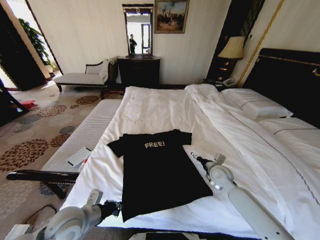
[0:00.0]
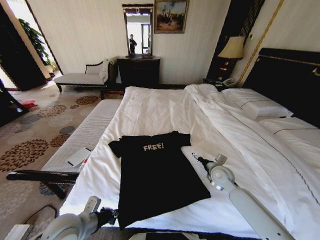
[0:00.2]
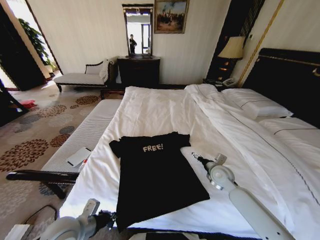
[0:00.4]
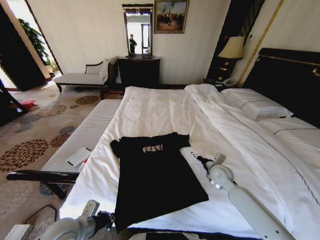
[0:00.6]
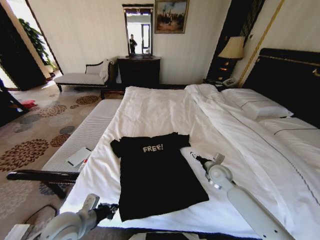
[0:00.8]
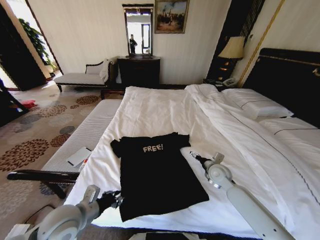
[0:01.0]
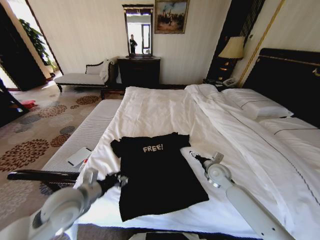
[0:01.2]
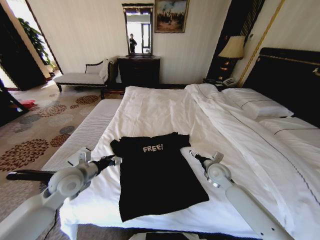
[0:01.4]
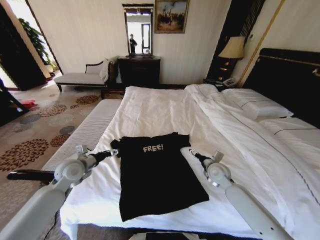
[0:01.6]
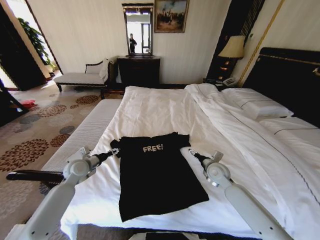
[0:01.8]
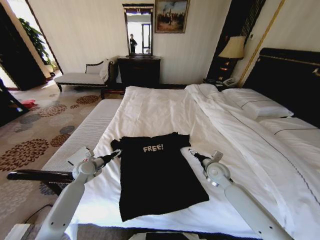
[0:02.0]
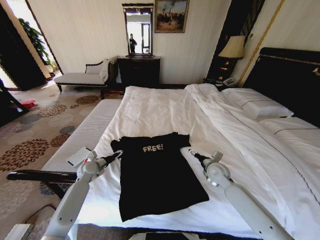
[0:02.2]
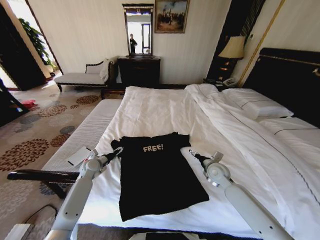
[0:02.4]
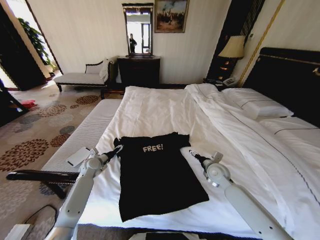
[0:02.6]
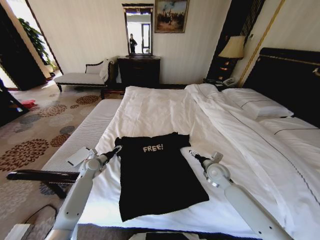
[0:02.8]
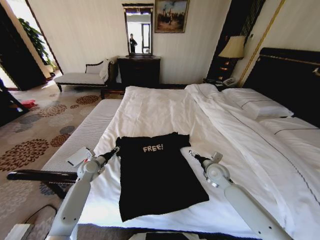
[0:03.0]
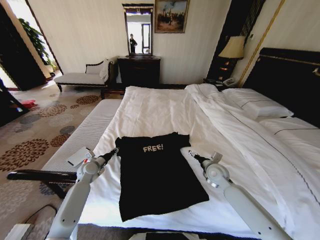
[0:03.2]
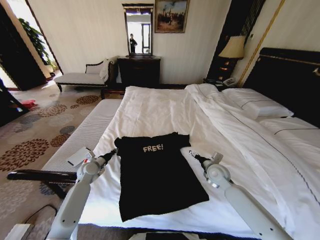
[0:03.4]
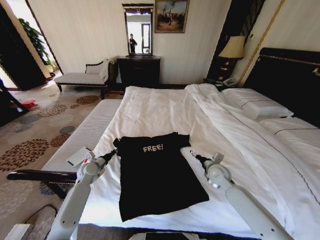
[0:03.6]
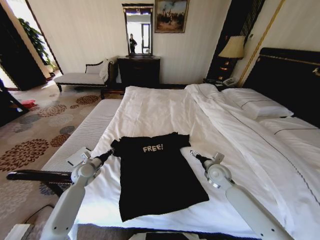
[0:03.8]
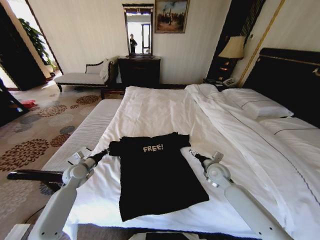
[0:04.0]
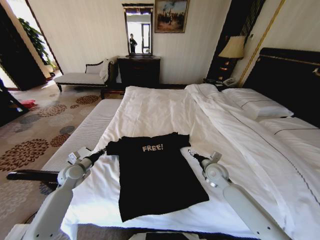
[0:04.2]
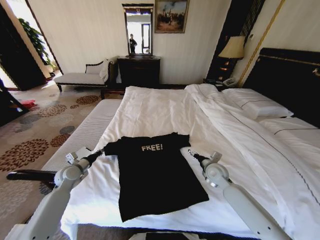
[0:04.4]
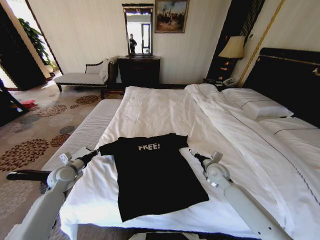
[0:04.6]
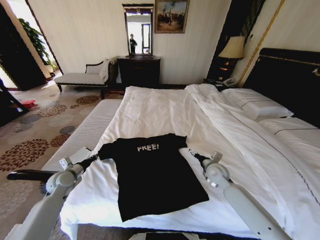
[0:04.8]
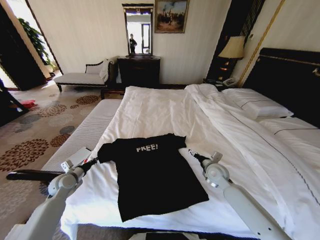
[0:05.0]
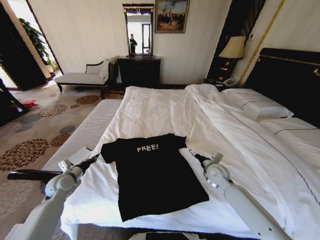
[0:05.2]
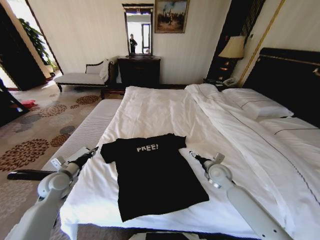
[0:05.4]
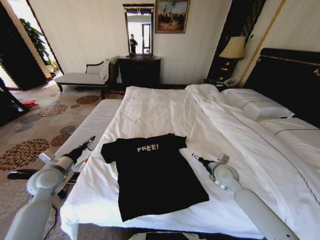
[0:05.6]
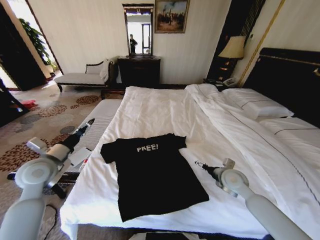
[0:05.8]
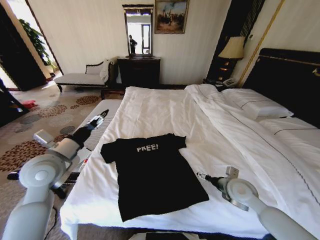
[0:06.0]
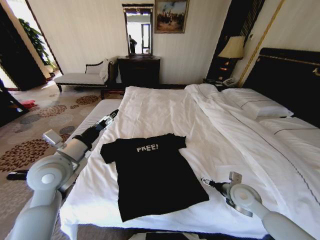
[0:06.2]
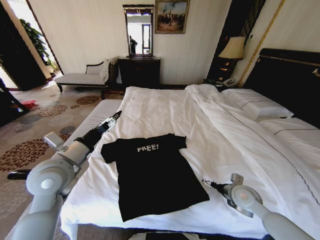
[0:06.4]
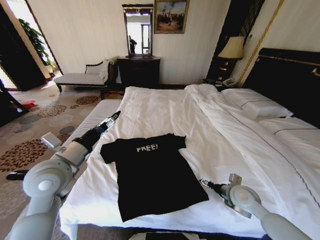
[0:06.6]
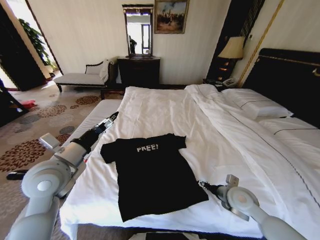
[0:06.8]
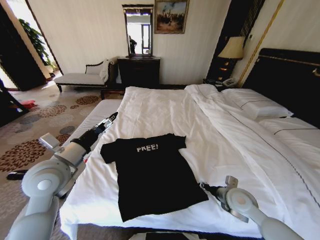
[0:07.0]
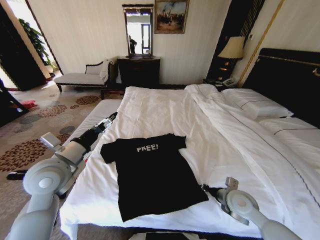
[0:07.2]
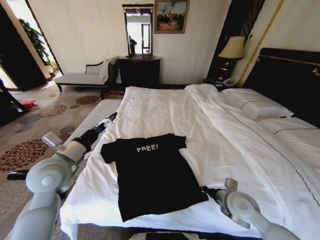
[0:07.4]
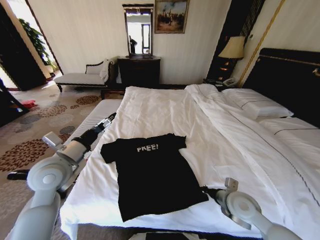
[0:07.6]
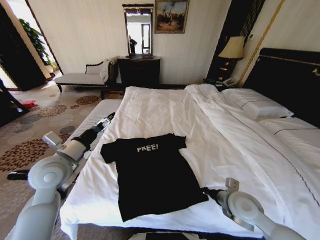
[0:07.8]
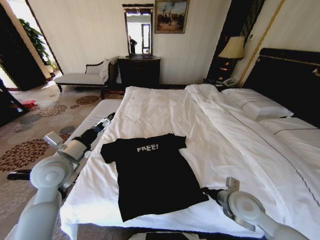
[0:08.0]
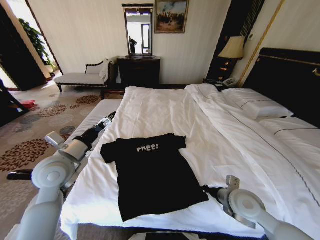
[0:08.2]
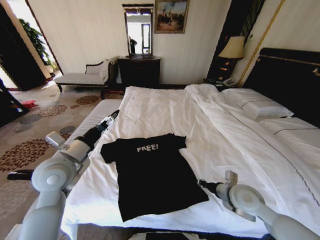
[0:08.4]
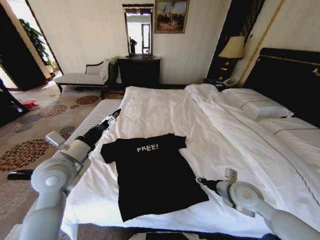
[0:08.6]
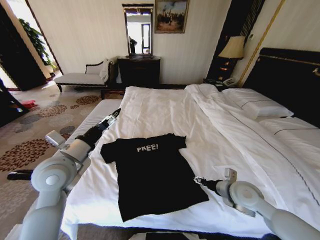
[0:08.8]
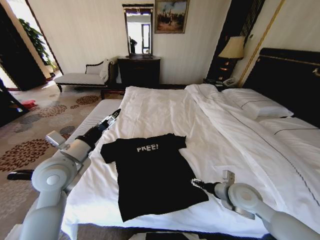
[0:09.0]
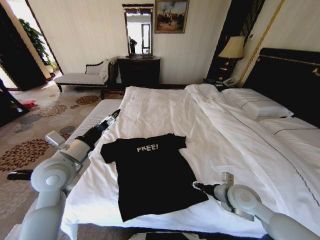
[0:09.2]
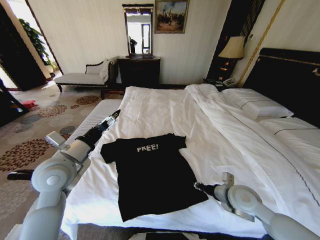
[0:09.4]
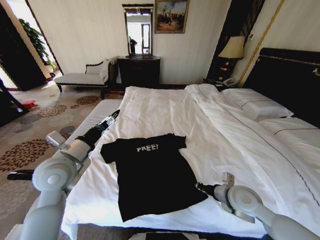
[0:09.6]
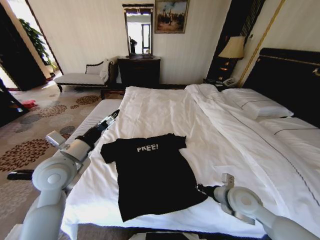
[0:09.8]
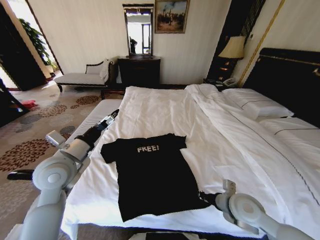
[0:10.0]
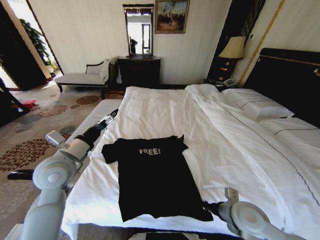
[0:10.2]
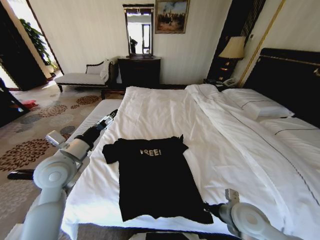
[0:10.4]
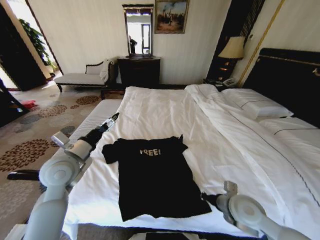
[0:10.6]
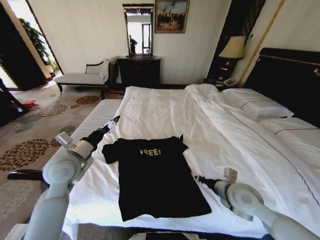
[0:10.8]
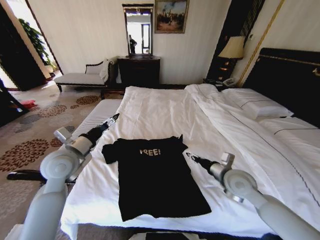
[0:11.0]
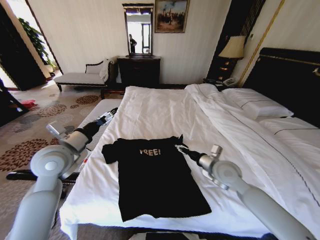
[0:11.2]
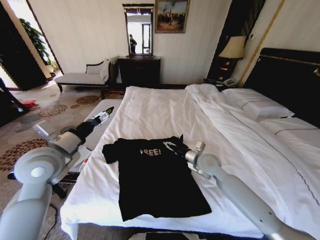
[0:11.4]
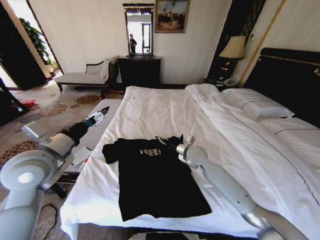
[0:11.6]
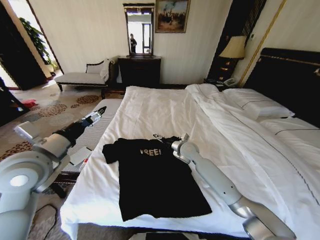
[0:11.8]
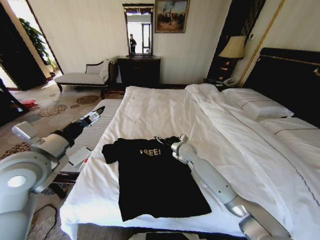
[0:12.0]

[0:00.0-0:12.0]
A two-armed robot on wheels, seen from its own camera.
Task of the whole recording: Fold the clothes on the bed.
0:00.0 to 0:01.6: The left gripper travels forward and to the left by some 20 cm, and opens.
0:01.6 to 0:03.0: The left gripper travels downward and forward by roughly 15 cm.
0:03.0 to 0:04.4: The left gripper is displaced to the left and backward by roughly 10 cm, and closes up.
0:04.4 to 0:06.0: The left gripper is displaced upward and to the right by roughly 20 cm, and opens up. The right gripper goes approximately 10 cm backward.
0:06.0 to 0:07.6: The right gripper changes place by roughly 5 cm, and closes up.
0:07.6 to 0:09.0: The right gripper opens.
0:09.0 to 0:10.4: The right gripper heads backward, covering roughly 5 cm, and closes its fingers.
0:10.4 to 0:12.0: The left gripper shifts about 5 cm upward. The right gripper travels forward and to the left by approximately 30 cm, and opens its fingers.

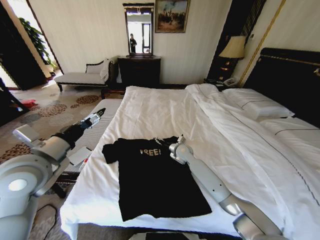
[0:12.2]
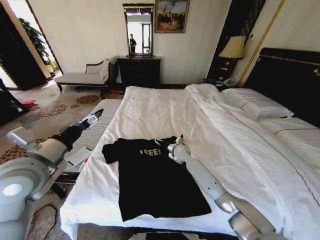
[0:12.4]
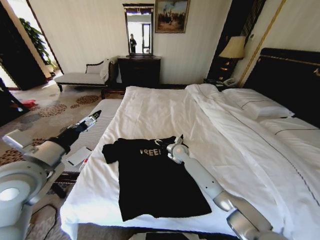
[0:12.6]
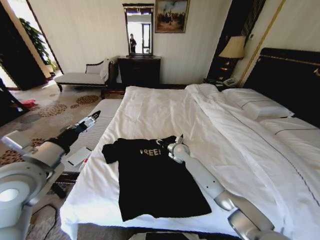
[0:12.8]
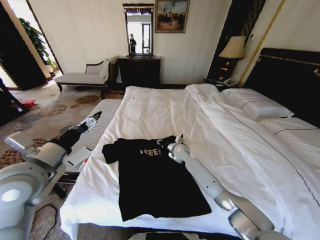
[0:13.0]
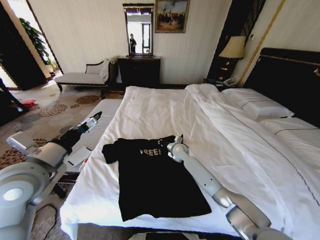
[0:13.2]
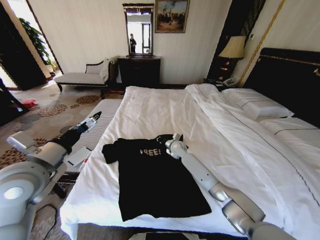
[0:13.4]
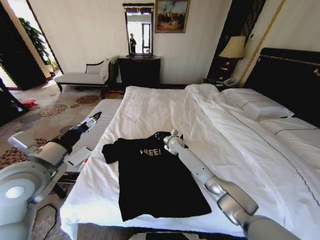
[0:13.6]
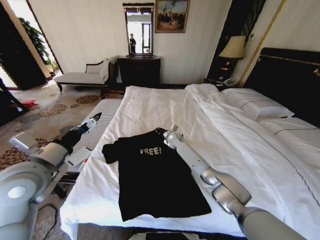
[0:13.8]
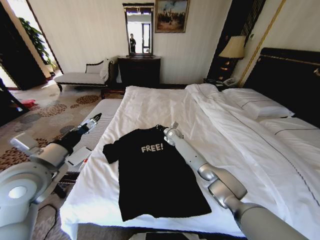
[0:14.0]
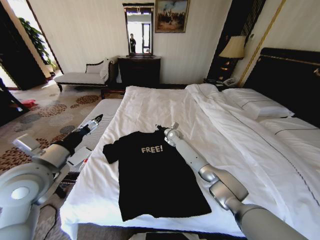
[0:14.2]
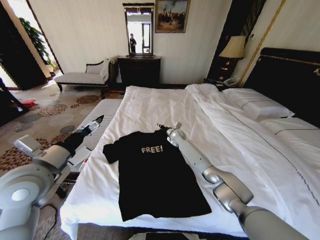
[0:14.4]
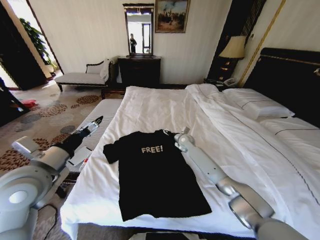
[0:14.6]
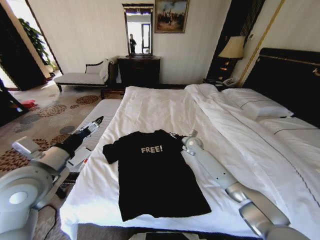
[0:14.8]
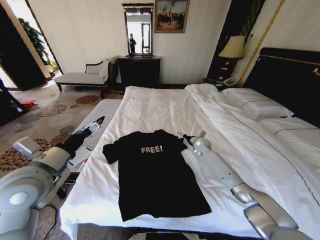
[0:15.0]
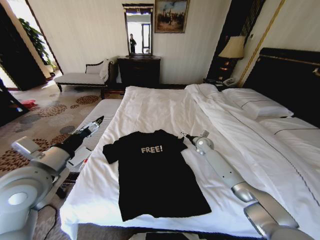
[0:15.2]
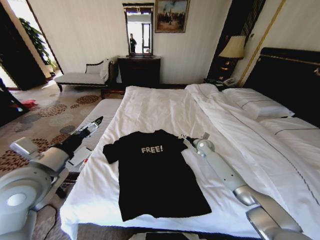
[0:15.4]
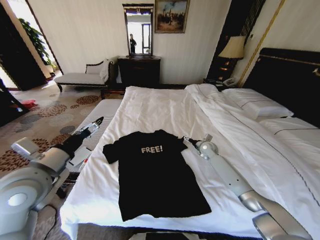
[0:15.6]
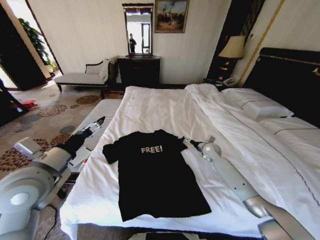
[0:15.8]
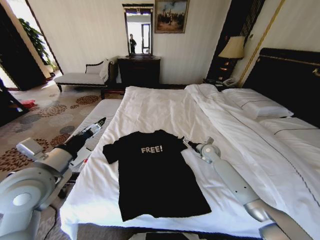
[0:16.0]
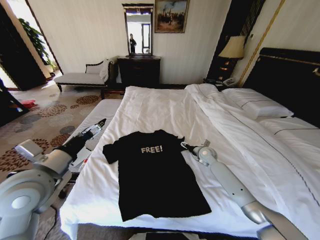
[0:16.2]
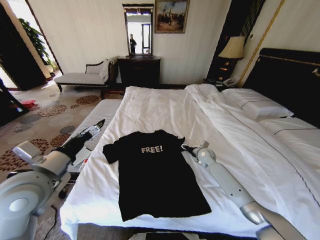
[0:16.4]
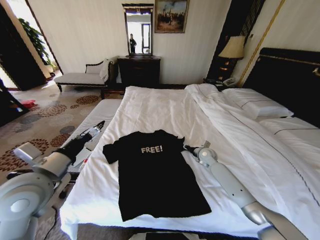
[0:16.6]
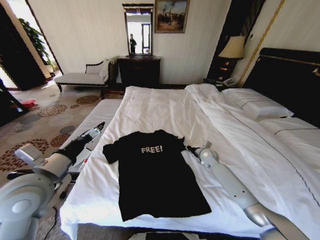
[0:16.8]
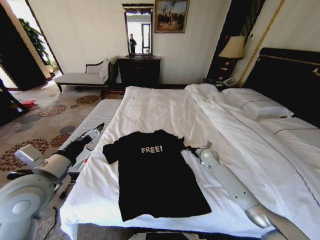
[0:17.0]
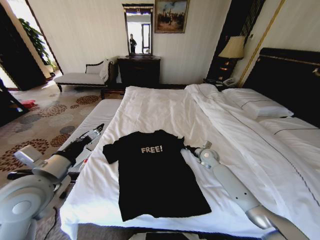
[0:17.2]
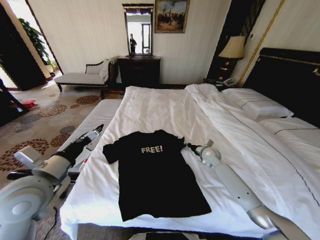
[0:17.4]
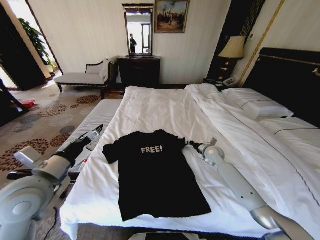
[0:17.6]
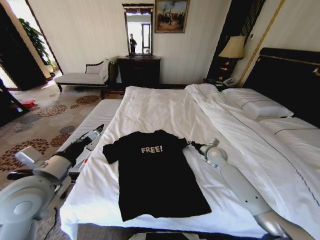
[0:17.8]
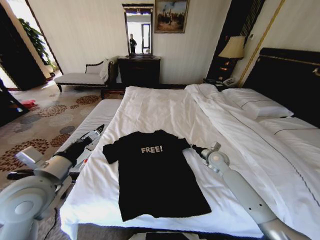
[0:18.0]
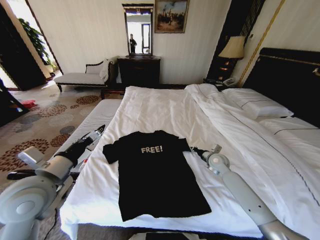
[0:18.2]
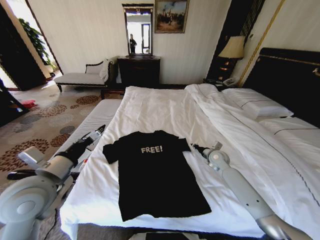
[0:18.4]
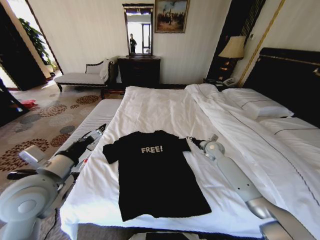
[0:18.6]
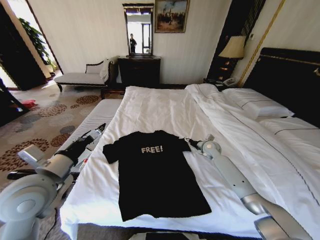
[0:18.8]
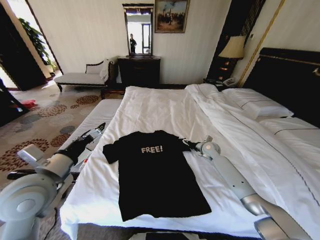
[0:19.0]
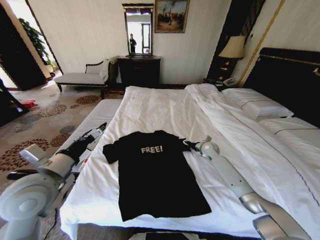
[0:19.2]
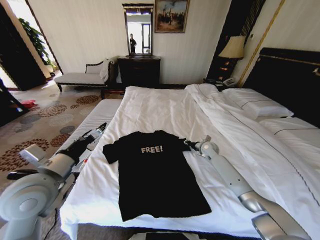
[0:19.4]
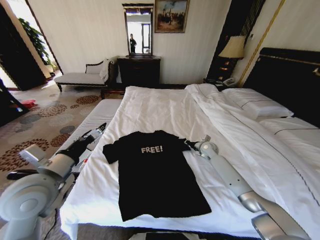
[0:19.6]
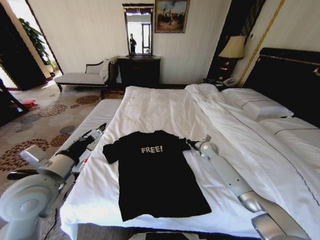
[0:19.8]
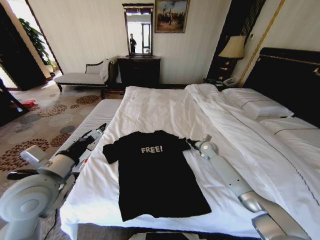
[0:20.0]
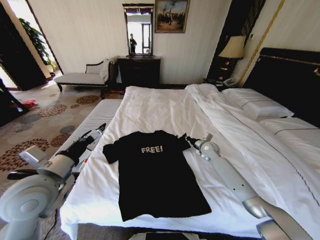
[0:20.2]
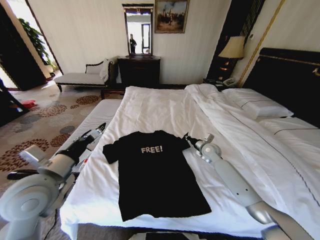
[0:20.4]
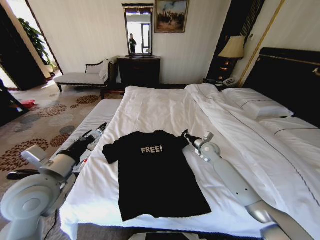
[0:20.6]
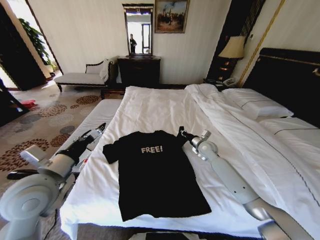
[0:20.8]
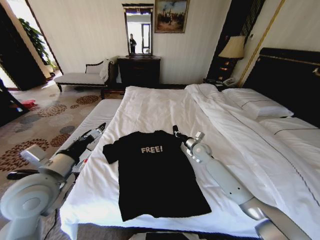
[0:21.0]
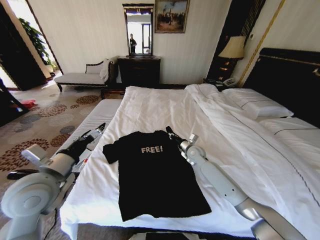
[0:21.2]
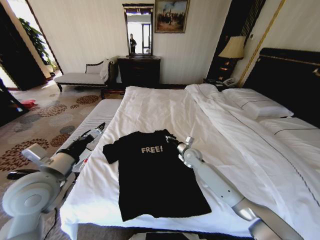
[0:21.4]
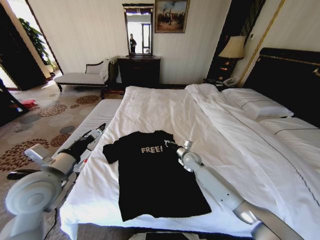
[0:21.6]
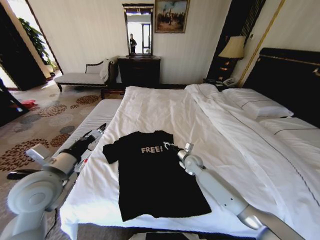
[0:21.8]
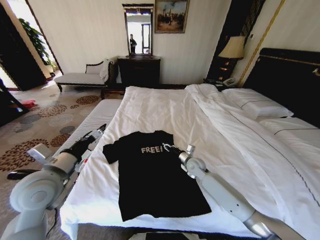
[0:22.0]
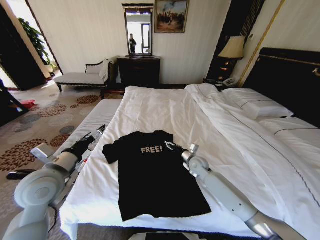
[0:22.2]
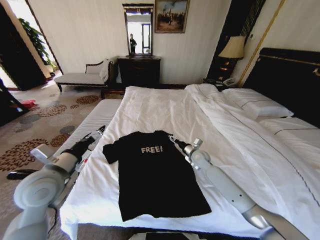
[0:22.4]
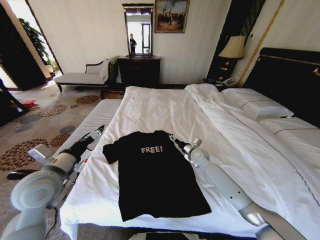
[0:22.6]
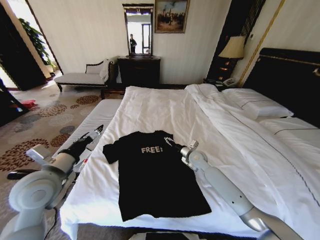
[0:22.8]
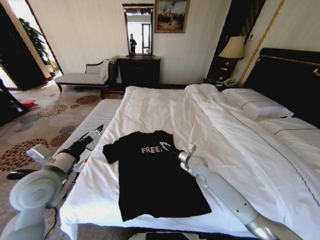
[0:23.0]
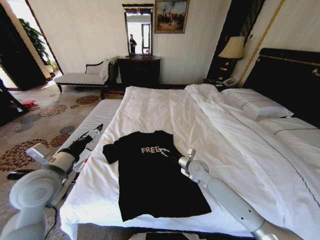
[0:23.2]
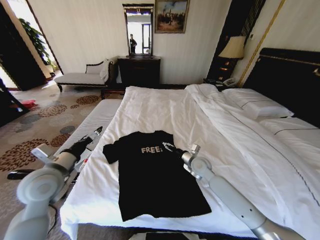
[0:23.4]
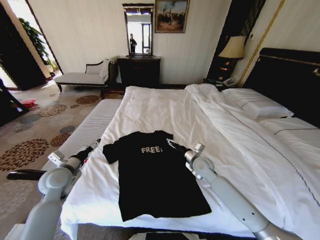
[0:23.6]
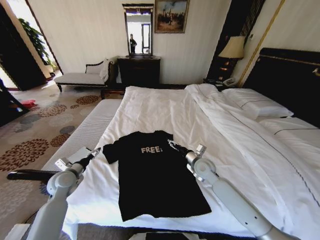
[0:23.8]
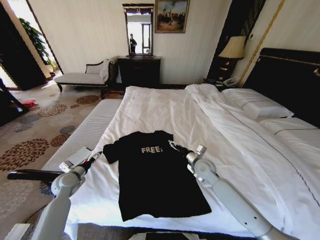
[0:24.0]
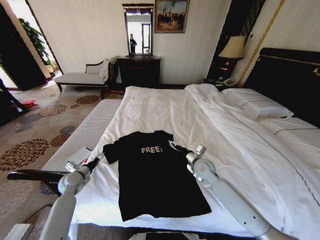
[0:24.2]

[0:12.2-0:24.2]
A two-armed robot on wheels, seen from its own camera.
Task of the whole recording: Fold the clothes on the bed.
0:12.2 to 0:13.8: The right gripper is displaced forward by some 10 cm, and closes.
0:13.8 to 0:15.2: The right gripper shifts some 20 cm to the right, and opens up.
0:15.2 to 0:16.6: The right gripper is displaced backward by about 5 cm, and closes its fingers.
0:16.6 to 0:18.2: The right gripper moves backward, roughly 5 cm, and closes.
0:18.2 to 0:19.8: The right gripper goes about 10 cm forward, and opens, then closes again.
0:19.8 to 0:21.2: The right gripper is displaced to the left by approximately 10 cm.
0:21.2 to 0:22.6: The right gripper opens its fingers.
0:22.6 to 0:24.2: The left gripper is displaced downward, forward and to the left by roughly 25 cm. The right gripper heads backward, covering approximately 10 cm.
